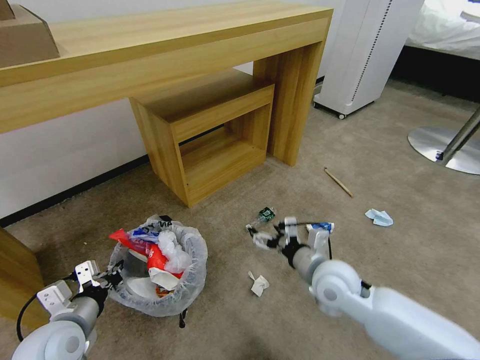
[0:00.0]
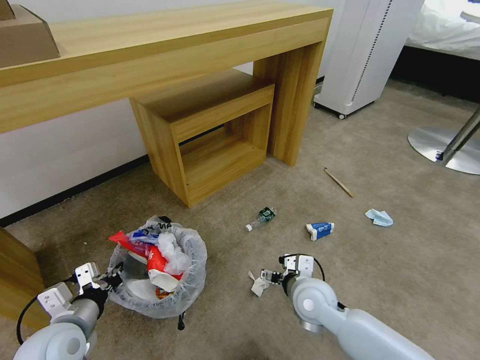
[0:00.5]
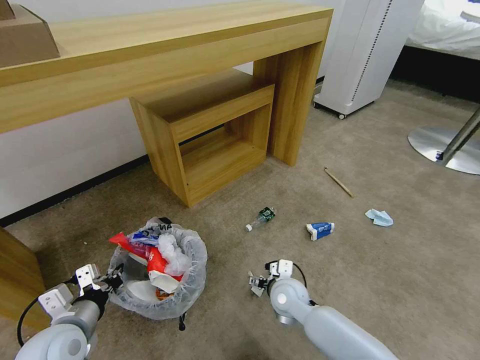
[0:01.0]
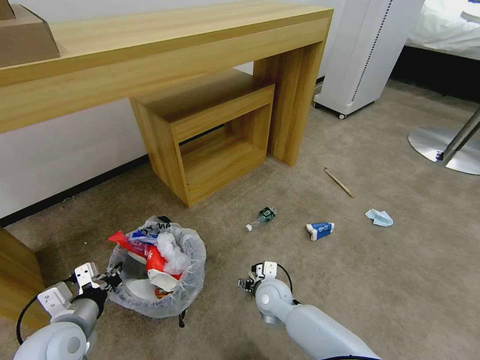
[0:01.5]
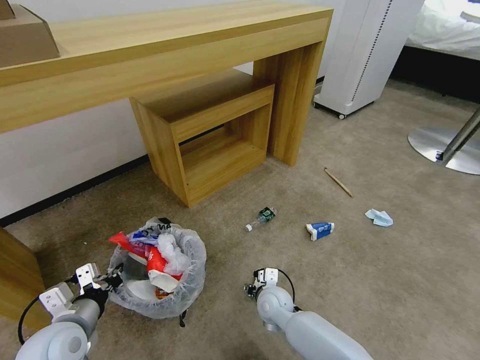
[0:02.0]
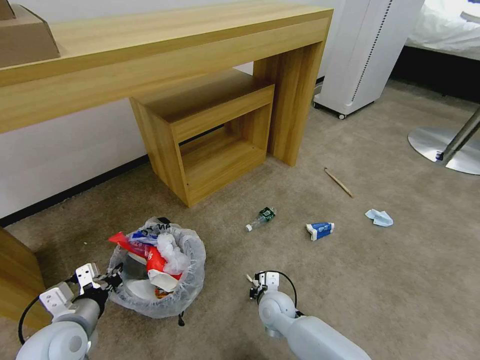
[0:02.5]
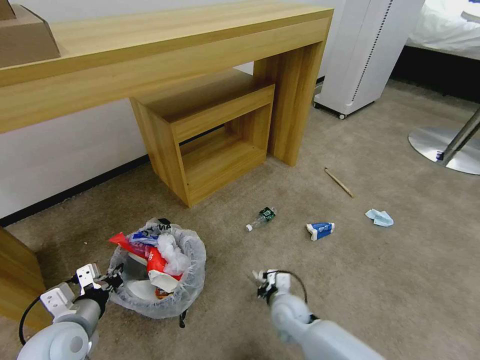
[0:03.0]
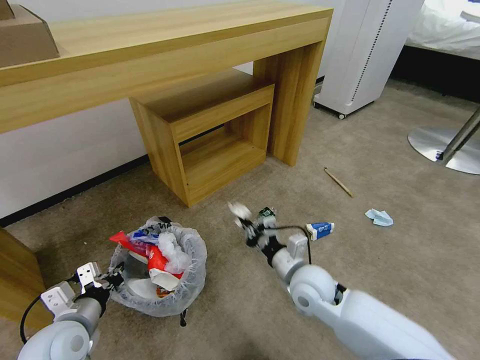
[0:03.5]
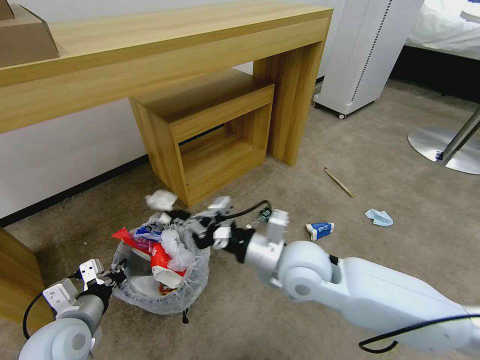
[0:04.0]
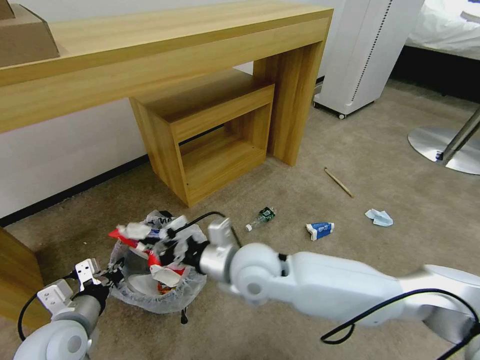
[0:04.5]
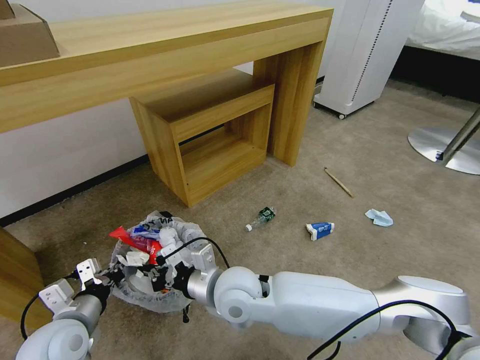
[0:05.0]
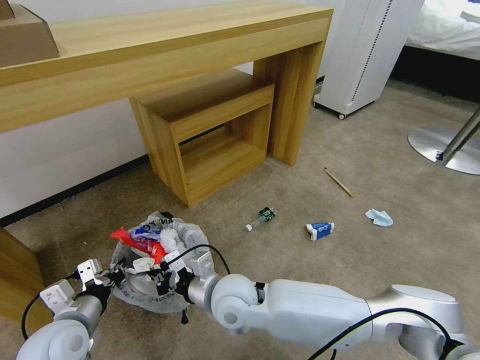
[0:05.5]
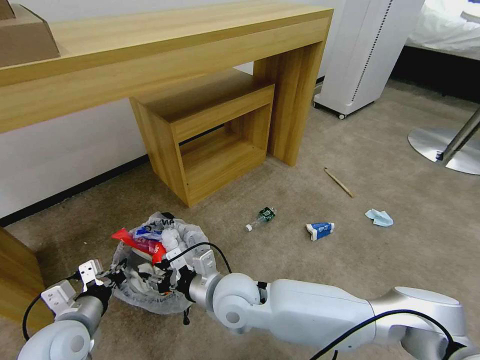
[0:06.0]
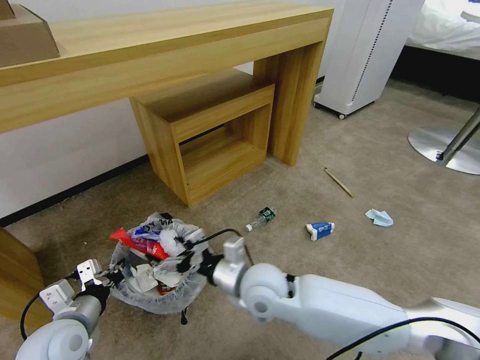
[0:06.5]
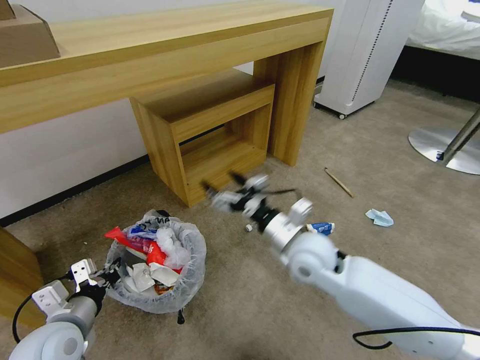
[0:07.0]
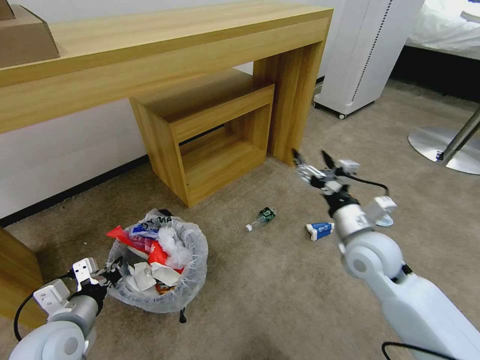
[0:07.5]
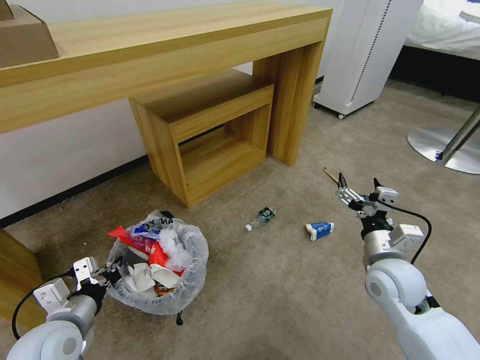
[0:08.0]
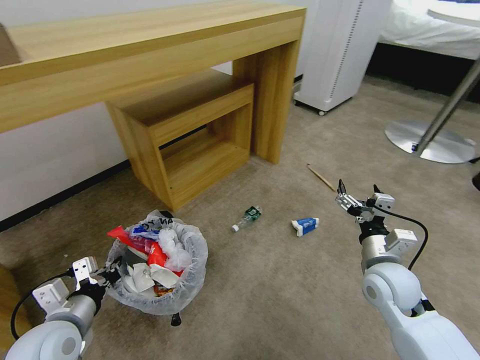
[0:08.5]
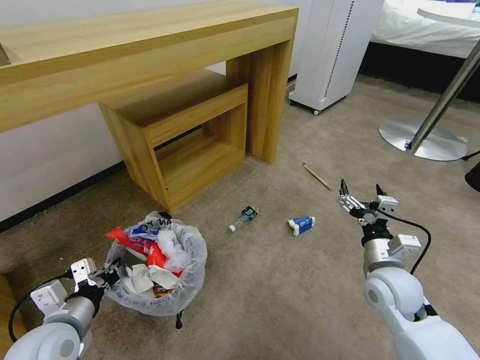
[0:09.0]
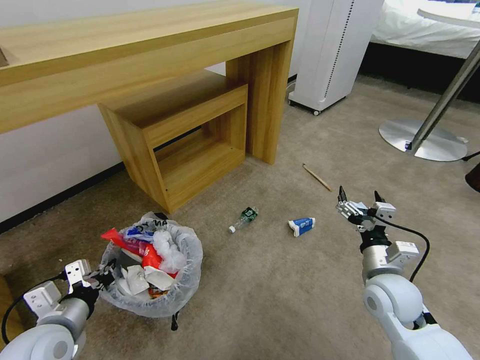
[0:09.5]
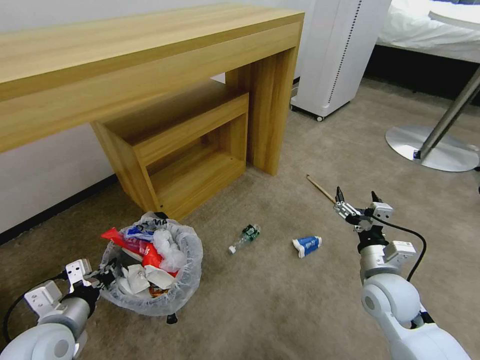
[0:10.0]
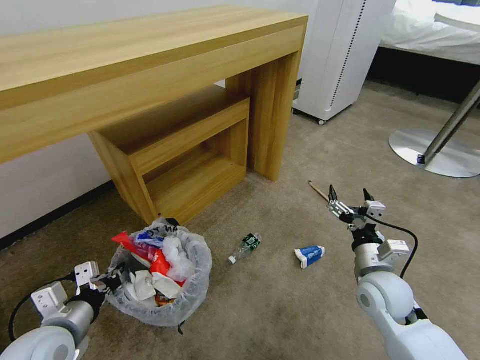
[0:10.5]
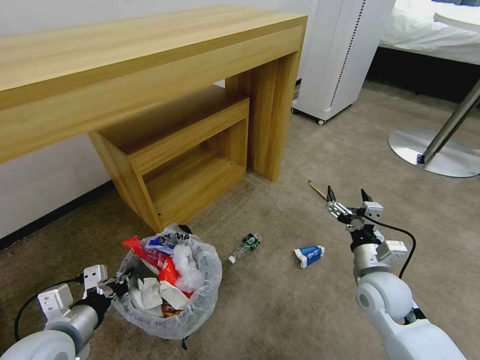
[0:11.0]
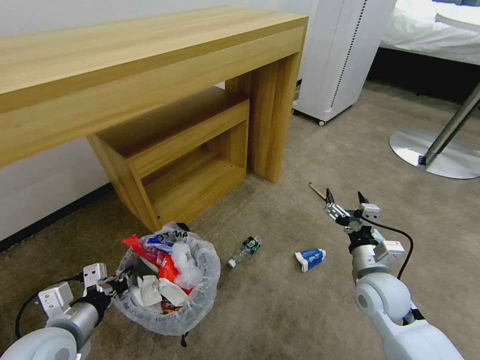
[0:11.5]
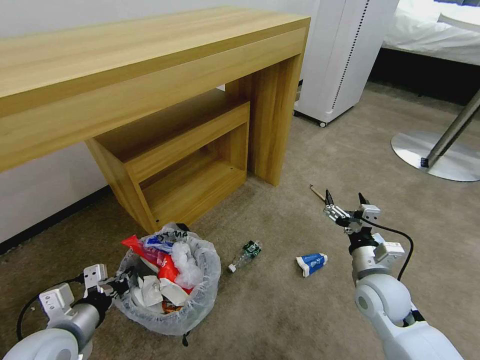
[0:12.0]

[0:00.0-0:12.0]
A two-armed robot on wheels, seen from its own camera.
Task of the whole recording: Pick up the trash bin and place the garbage on the floor into it.
0:00.0 to 0:02.0: The right gripper is displaced downward and to the left by approximately 20 cm.
0:02.0 to 0:04.0: The right gripper travels upward by about 25 cm, and closes.
0:04.0 to 0:06.0: The right gripper is displaced to the left and downward by roughly 15 cm, and opens its fingers.
0:06.0 to 0:08.0: The right gripper is displaced to the right by some 30 cm, and opens.

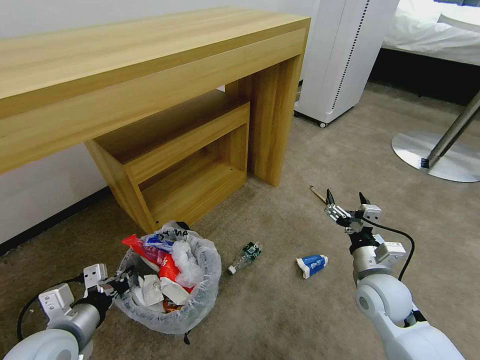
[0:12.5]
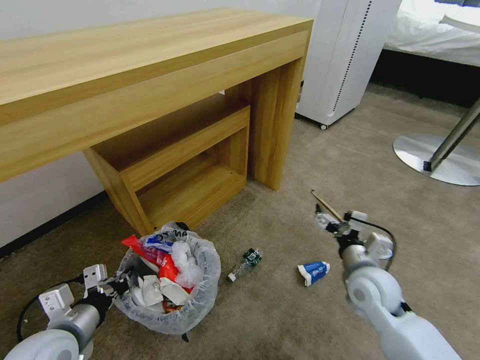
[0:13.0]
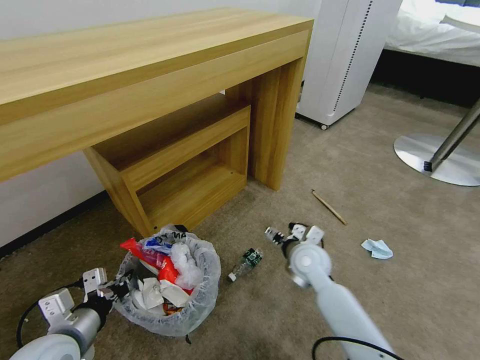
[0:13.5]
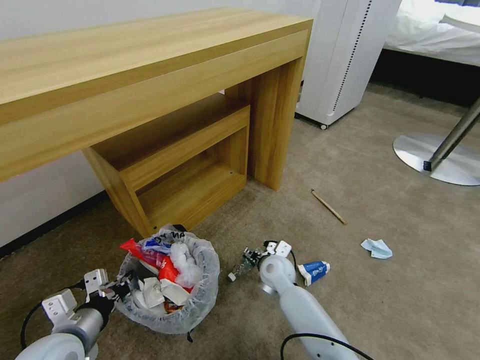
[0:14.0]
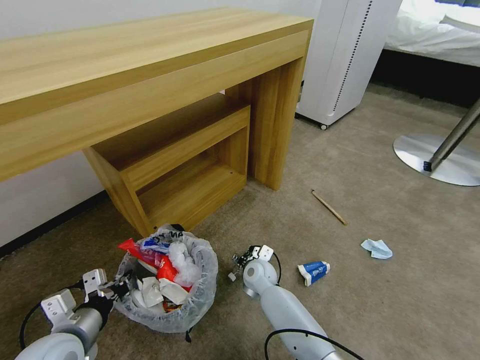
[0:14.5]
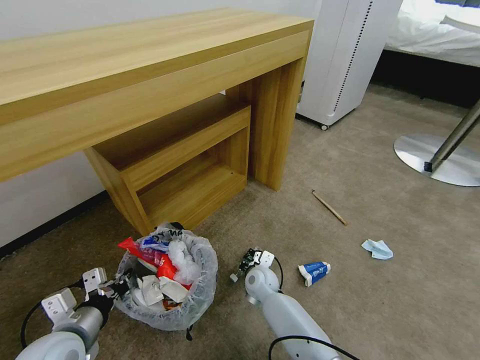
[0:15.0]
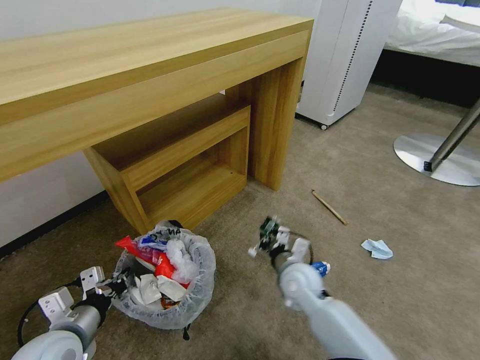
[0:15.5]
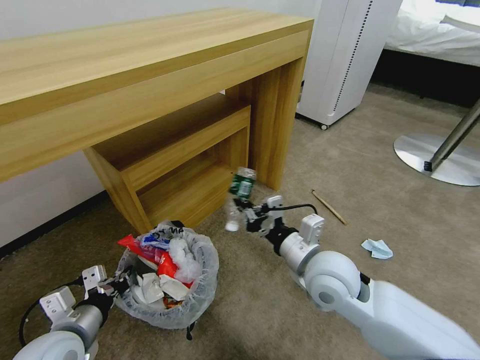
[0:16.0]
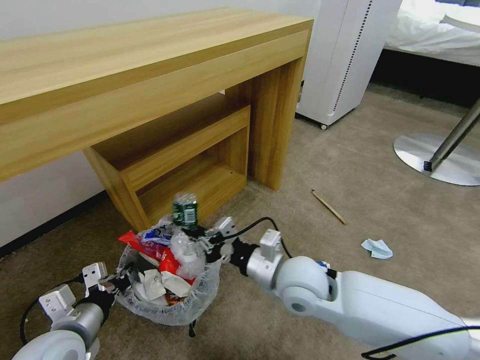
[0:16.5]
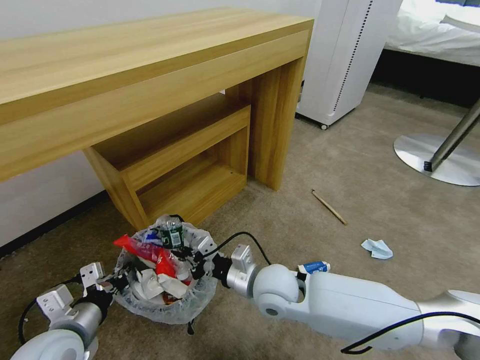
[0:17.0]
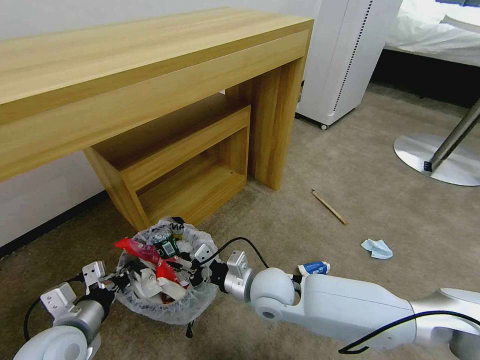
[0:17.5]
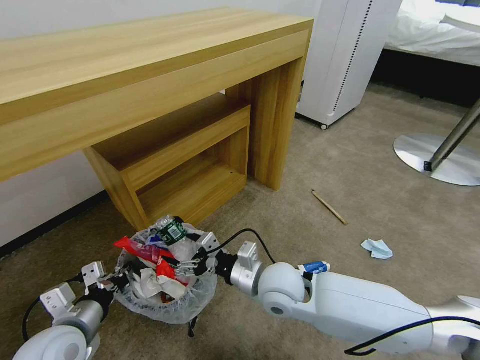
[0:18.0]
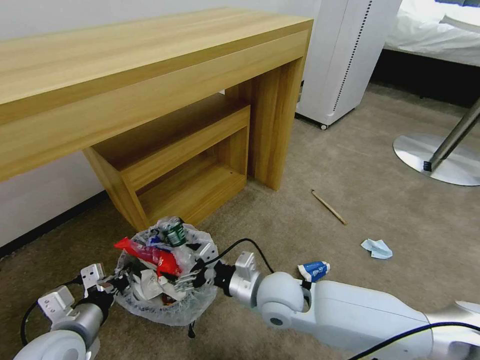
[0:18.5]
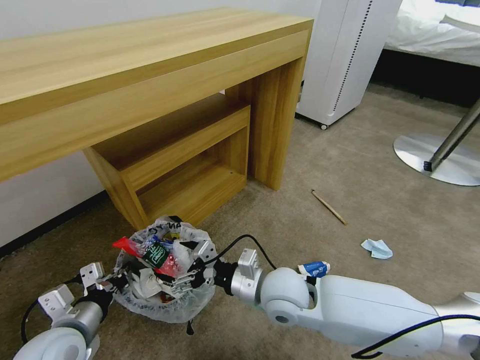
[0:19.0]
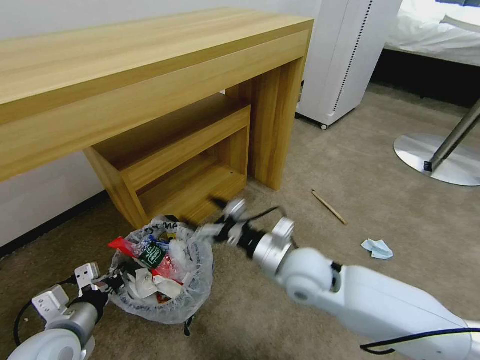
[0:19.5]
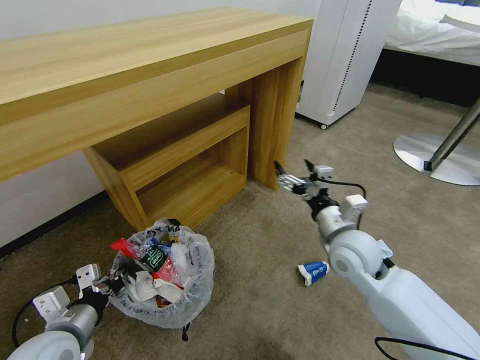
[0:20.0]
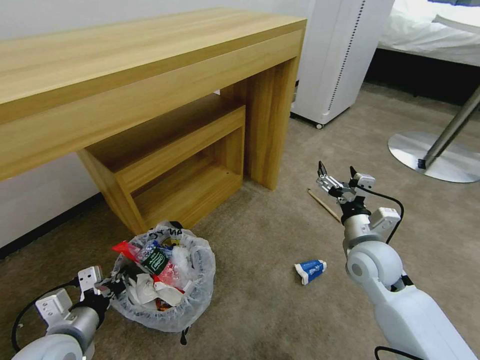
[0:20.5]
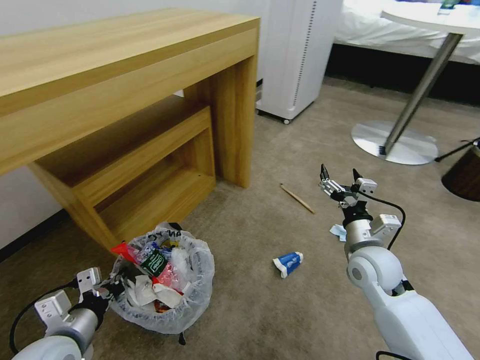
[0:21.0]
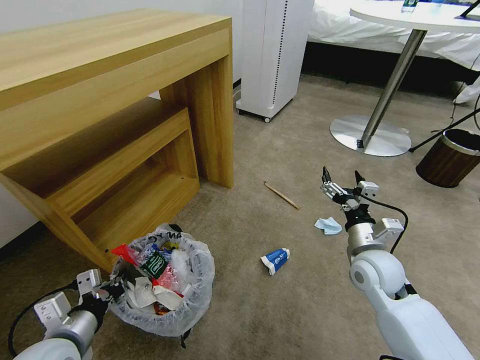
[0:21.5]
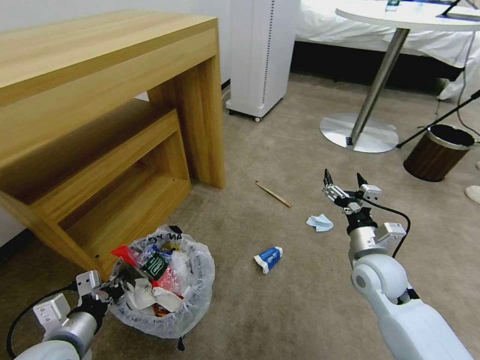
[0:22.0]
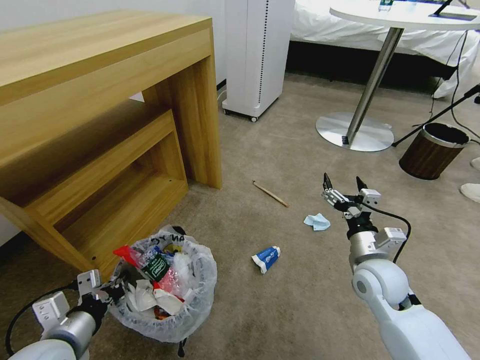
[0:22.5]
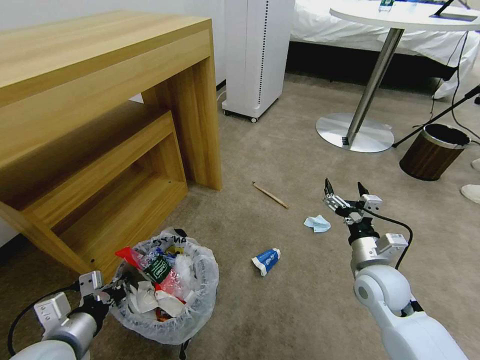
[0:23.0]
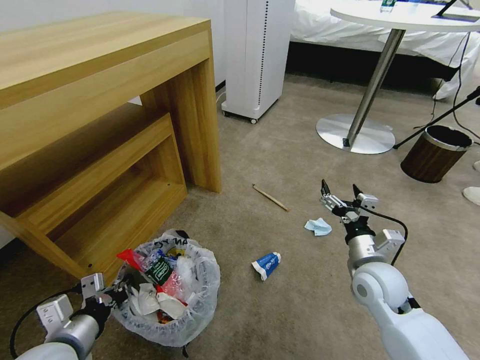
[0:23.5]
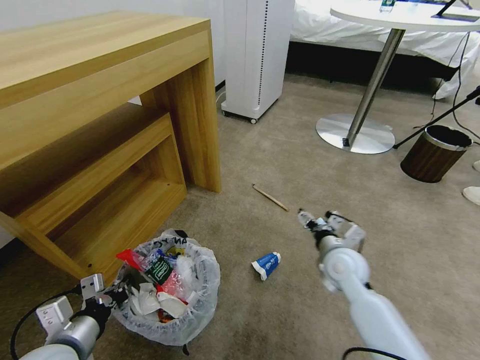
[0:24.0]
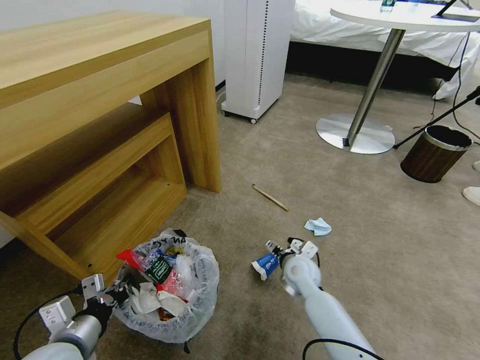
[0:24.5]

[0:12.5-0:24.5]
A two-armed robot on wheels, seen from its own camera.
Task of the whole recording: Pick up the trash bin and place the garbage on the floor into it.
0:12.5 to 0:14.5: The right gripper is displaced to the left, downward and forward by approximately 30 cm.
0:14.5 to 0:16.5: The right gripper moves upward and backward, approximately 25 cm, and closes its fingers.
0:16.5 to 0:18.5: The right gripper heads downward, covering about 5 cm, and opens its fingers.
0:18.5 to 0:20.5: The right gripper moves to the right, some 20 cm.
0:22.5 to 0:24.5: The right gripper is displaced to the left, downward and forward by approximately 20 cm.

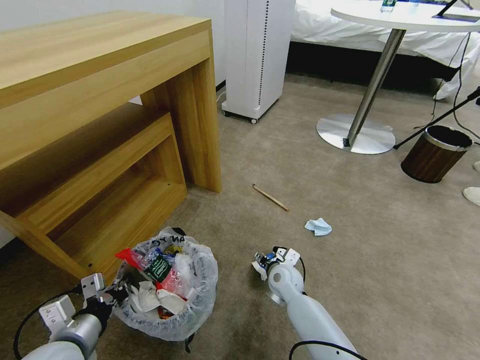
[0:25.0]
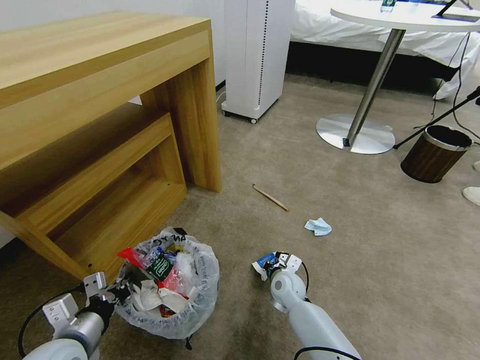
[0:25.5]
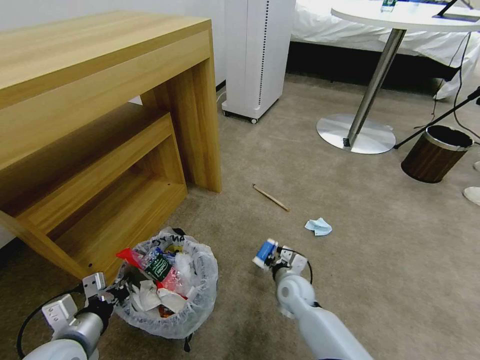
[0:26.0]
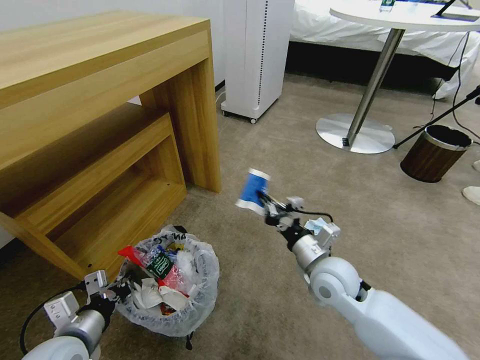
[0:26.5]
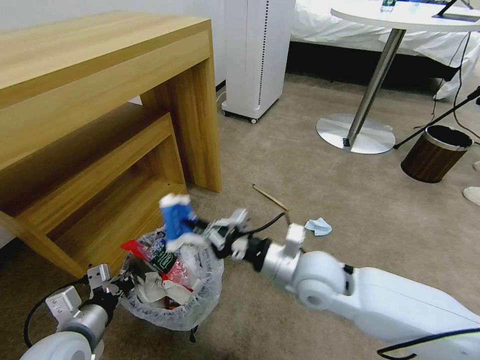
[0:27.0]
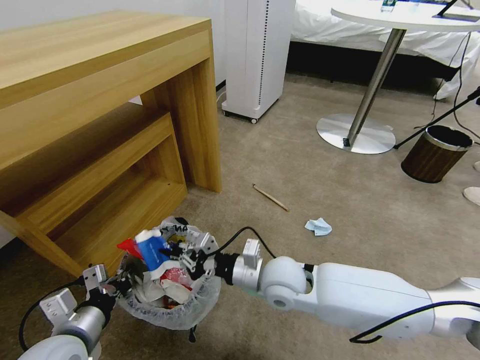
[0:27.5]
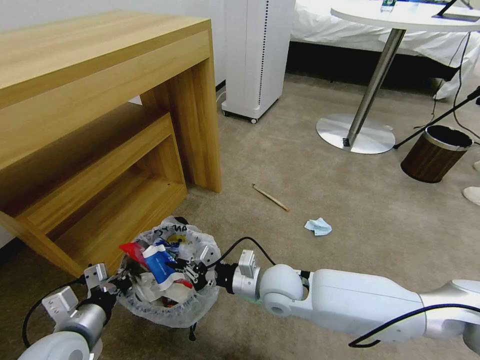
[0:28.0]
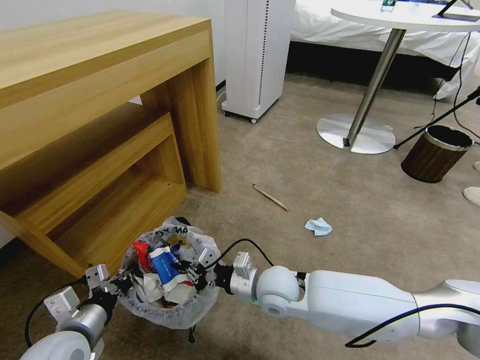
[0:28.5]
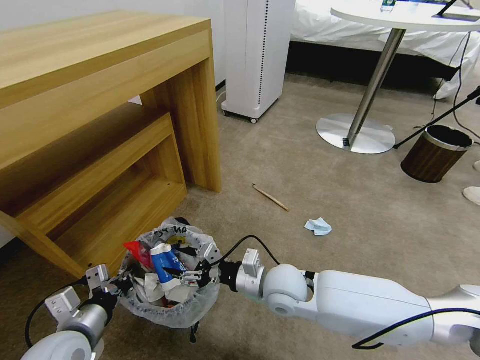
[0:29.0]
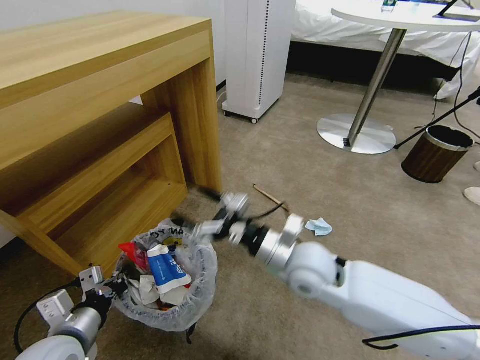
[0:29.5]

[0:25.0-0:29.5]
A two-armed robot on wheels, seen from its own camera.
Task of the whole recording: Pick up the trash bin and place the garbage on the floor into it.
0:25.0 to 0:27.0: The right gripper shifts about 20 cm upward, and closes up.
0:27.0 to 0:29.5: The right gripper moves about 10 cm downward and comes back, and opens its fingers.
